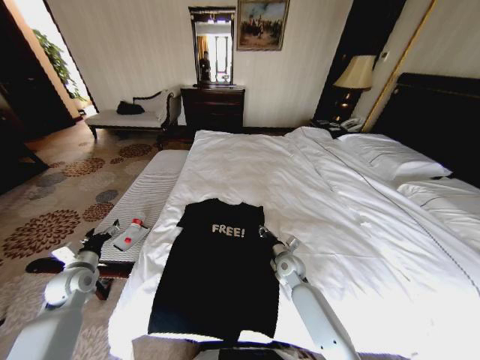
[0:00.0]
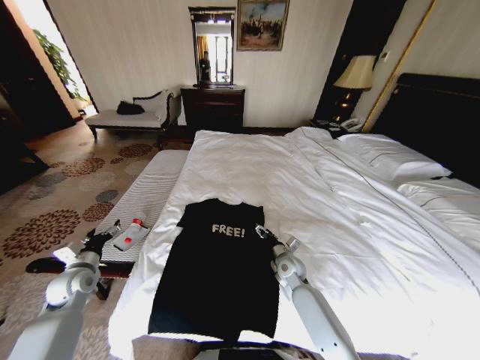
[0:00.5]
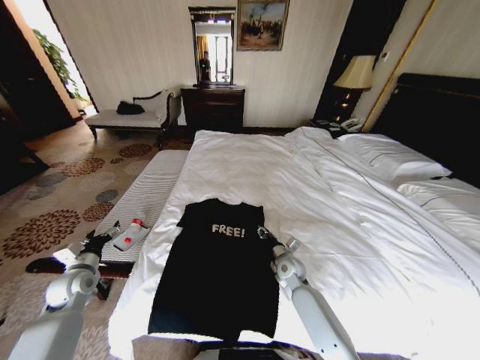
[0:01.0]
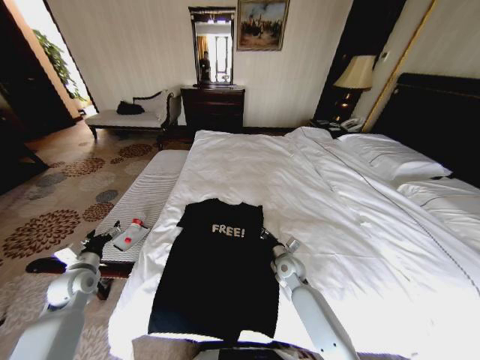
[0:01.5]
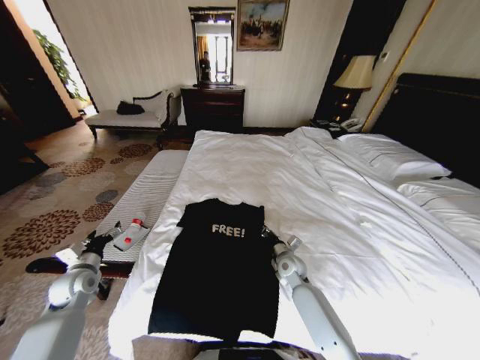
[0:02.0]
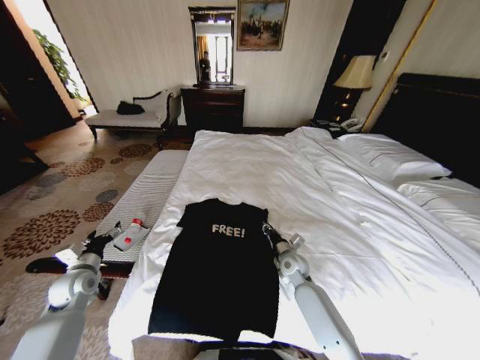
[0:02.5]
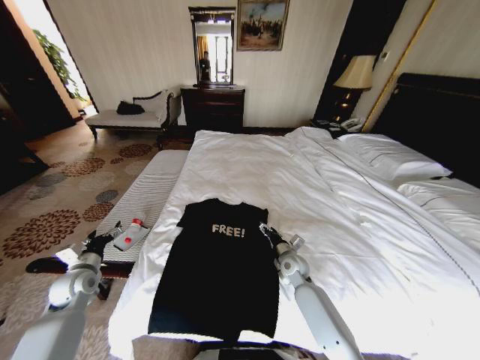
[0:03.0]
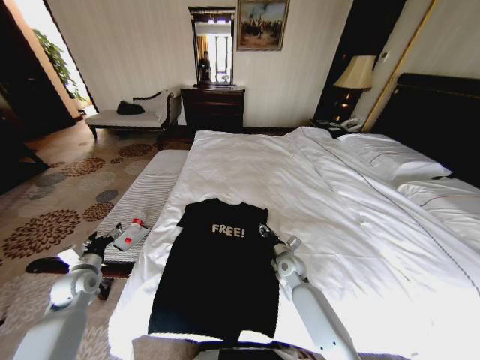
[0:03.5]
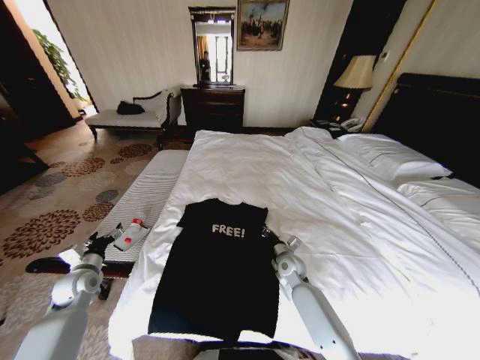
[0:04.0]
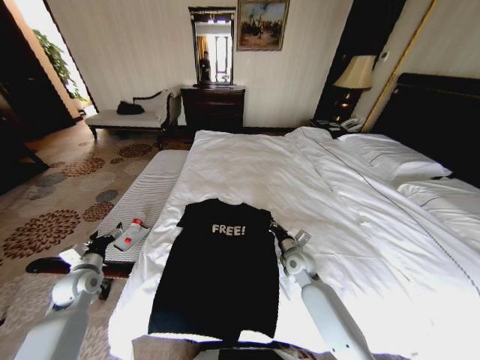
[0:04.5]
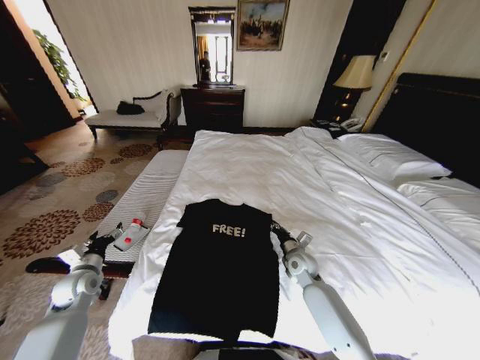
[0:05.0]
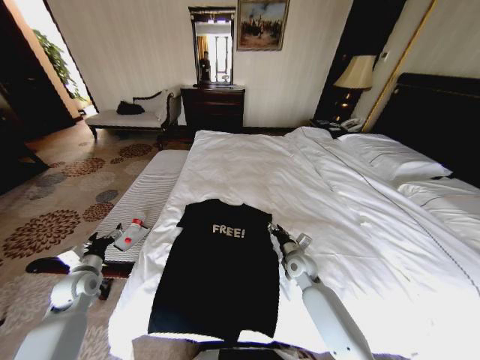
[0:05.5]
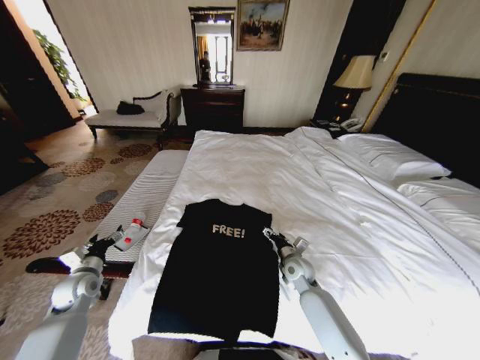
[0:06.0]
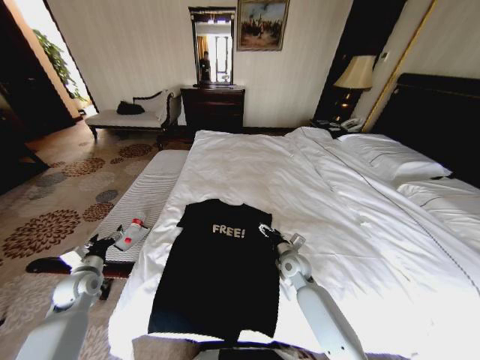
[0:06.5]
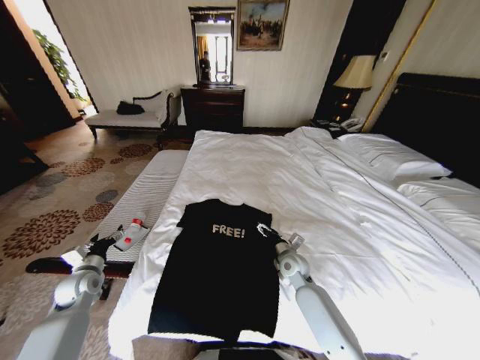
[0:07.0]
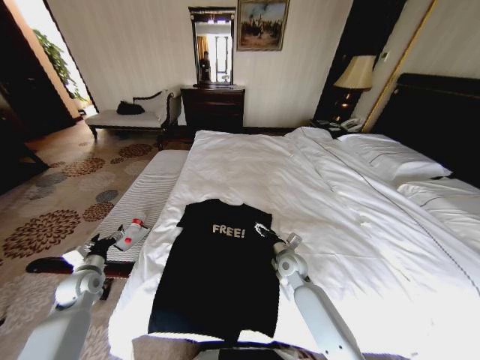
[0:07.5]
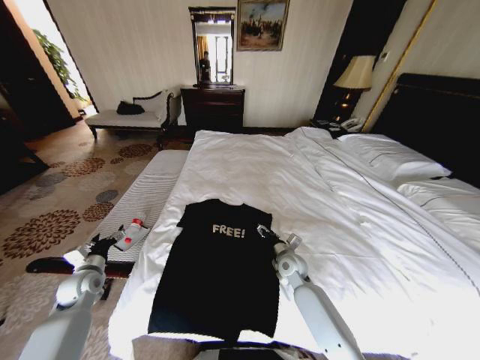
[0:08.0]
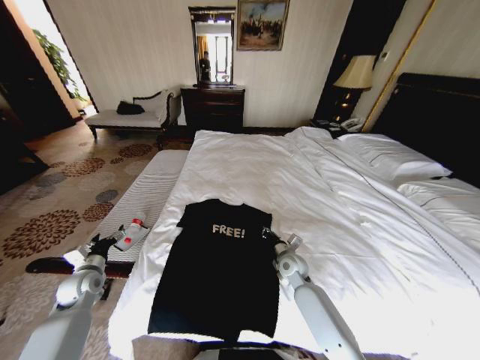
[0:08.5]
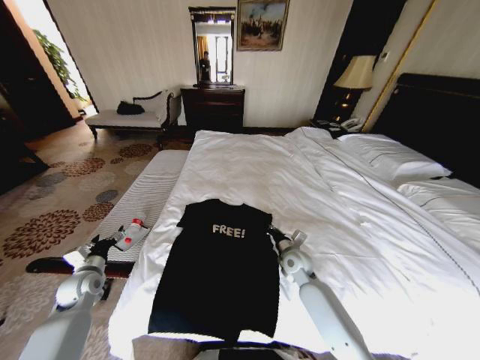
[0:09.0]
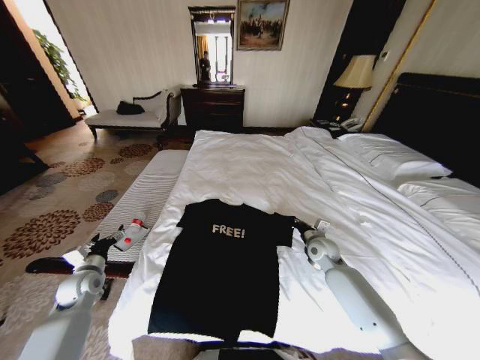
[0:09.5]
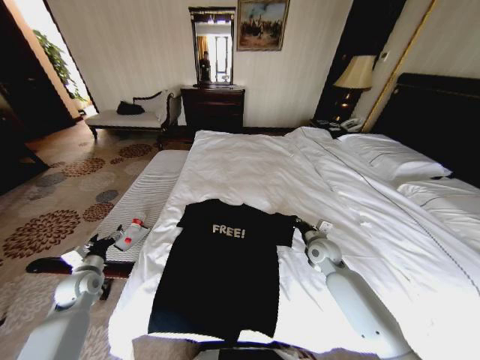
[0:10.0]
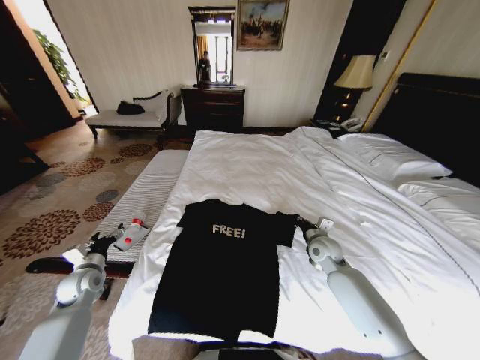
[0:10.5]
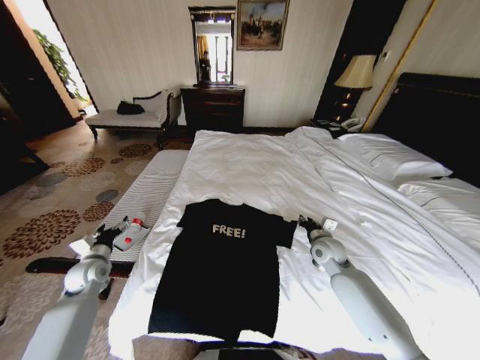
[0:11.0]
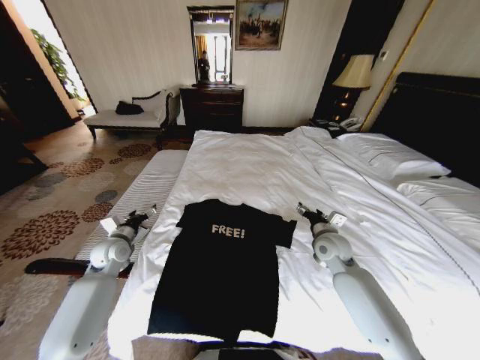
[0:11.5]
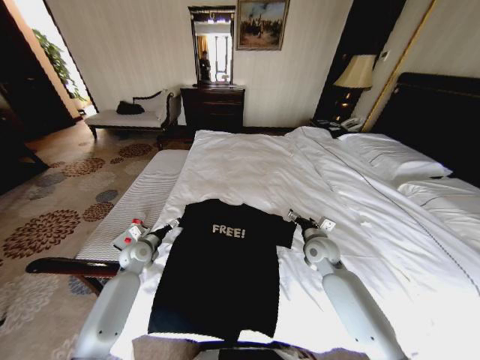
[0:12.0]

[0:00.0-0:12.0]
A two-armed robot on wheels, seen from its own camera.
Task of the whole recording: Fold the clothes on the bed.
0:04.0 to 0:06.0: The right gripper opens its fingers.
0:06.0 to 0:08.0: The grippers move only a little.
0:08.0 to 0:10.0: The right gripper heads to the right and upward, covering about 10 cm, and closes up.
0:10.0 to 0:12.0: The left gripper travels to the right and forward by roughly 15 cm. The right gripper opens.

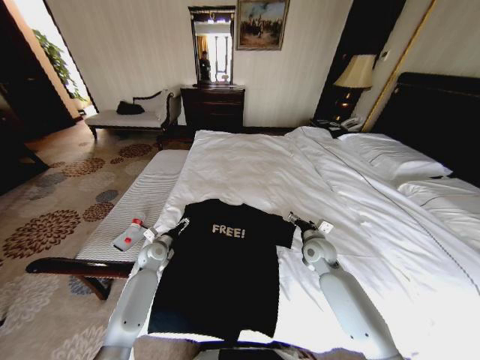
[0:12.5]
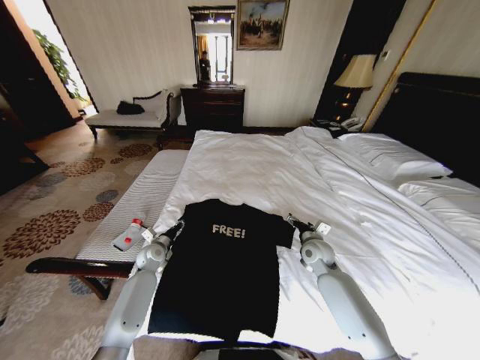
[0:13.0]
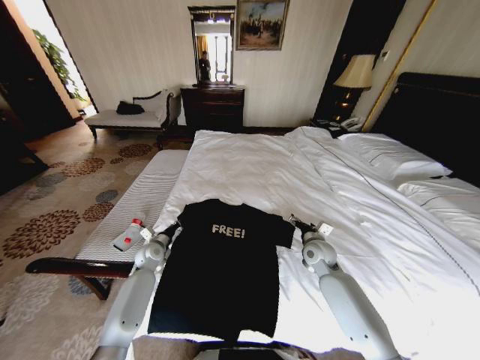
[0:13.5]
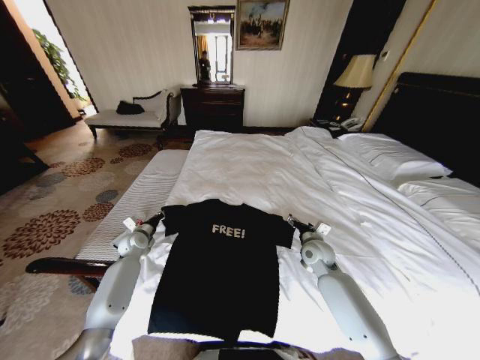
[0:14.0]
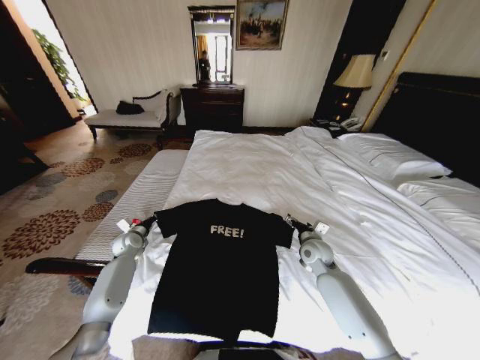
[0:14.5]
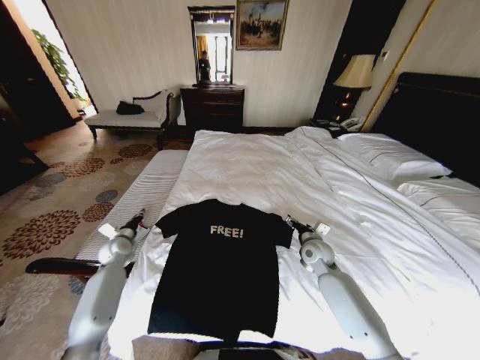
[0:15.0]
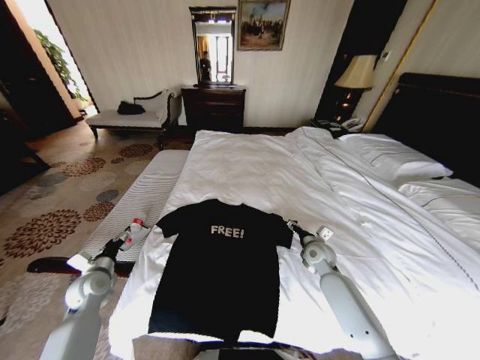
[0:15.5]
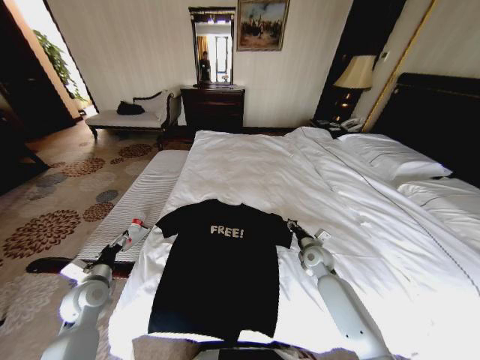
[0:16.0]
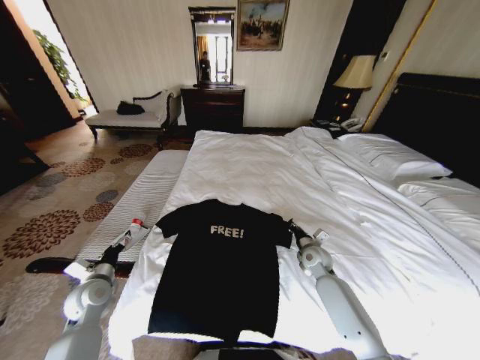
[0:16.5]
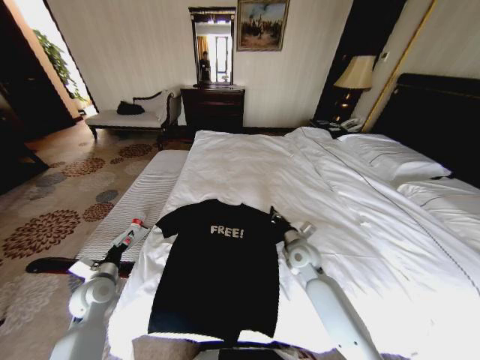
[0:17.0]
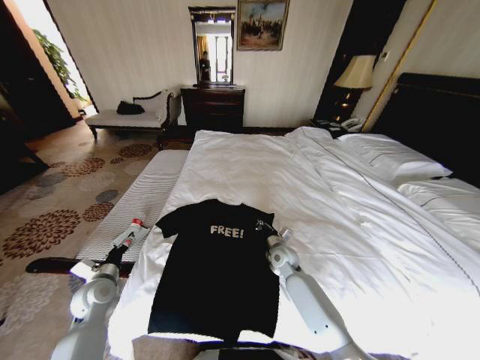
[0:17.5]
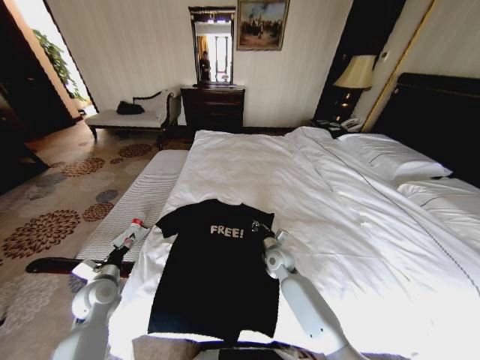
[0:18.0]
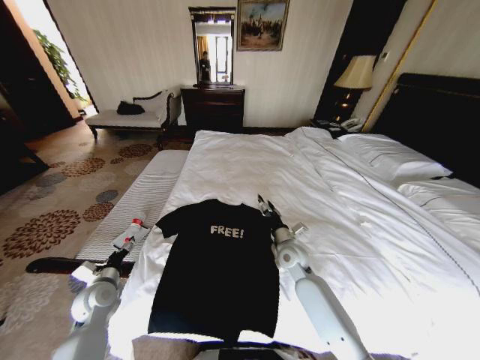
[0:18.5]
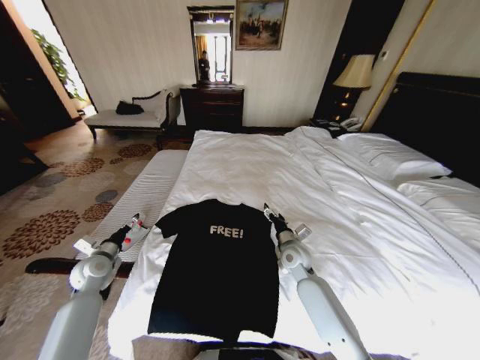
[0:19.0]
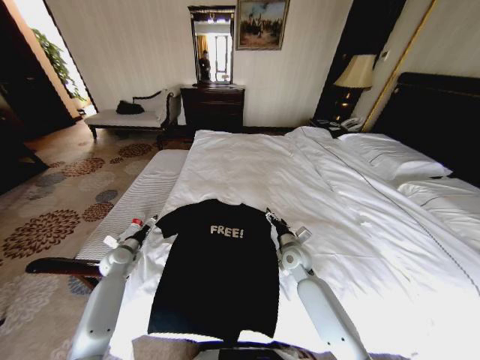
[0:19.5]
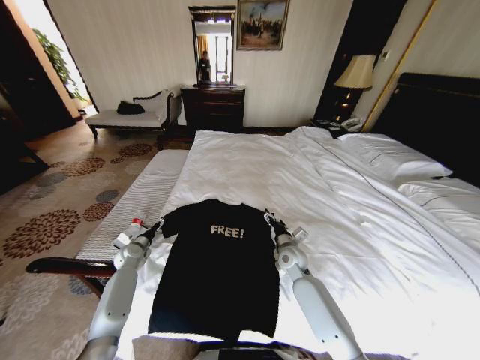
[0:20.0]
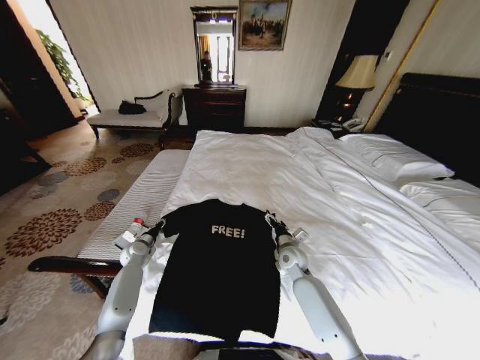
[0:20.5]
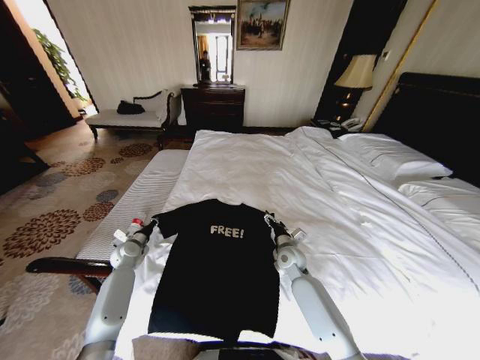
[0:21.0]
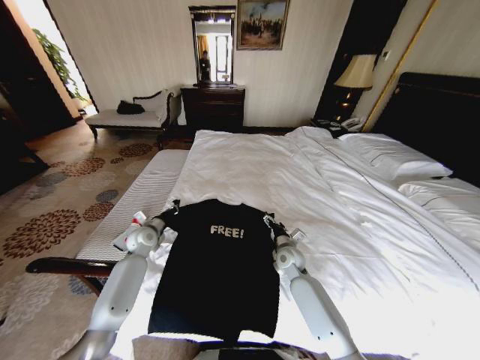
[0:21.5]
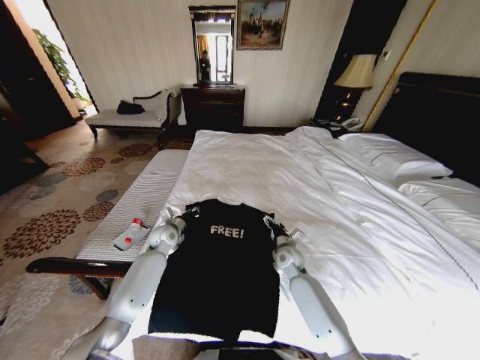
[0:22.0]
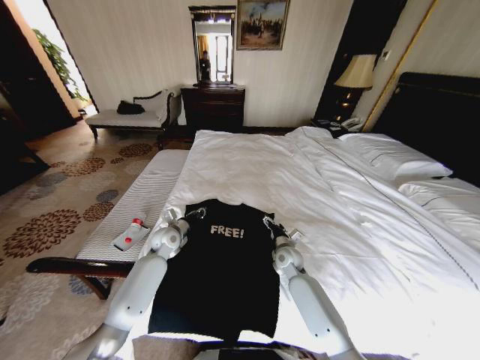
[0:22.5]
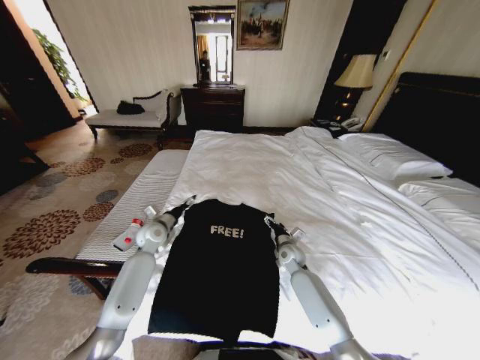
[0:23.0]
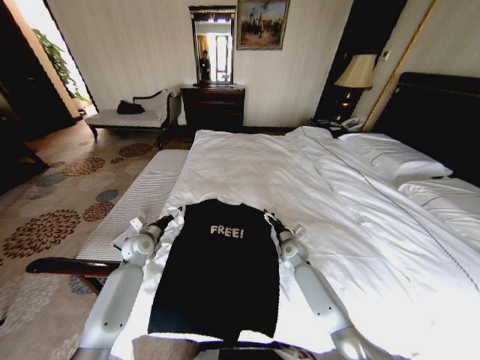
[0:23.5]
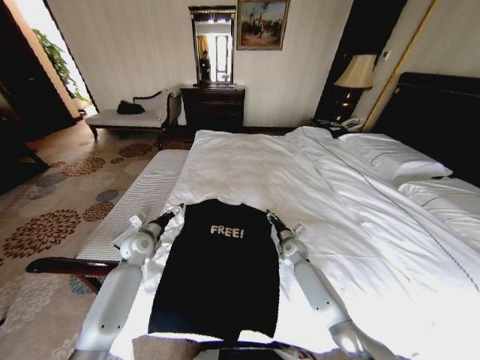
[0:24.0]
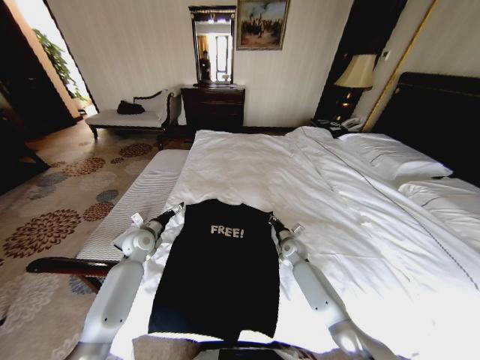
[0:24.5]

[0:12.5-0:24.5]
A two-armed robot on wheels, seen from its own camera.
Task of the whole recording: Fold the clothes on the bed.
0:12.5 to 0:14.5: The left gripper moves to the left, some 10 cm, and closes its fingers.
0:14.5 to 0:16.5: The left gripper moves backward, approximately 20 cm, and opens. The right gripper moves some 5 cm, and closes.
0:16.5 to 0:18.5: The right gripper shifts roughly 10 cm to the left, and opens its fingers.
0:18.5 to 0:20.5: The left gripper goes about 15 cm forward, and closes its fingers. The right gripper opens.
0:20.5 to 0:22.5: The left gripper travels to the right and upward by roughly 15 cm.
0:22.5 to 0:24.5: The right gripper goes roughly 5 cm forward, and closes, while the left gripper moves to the left, some 10 cm, and opens its fingers.

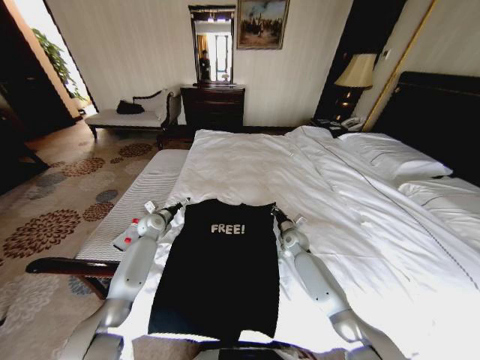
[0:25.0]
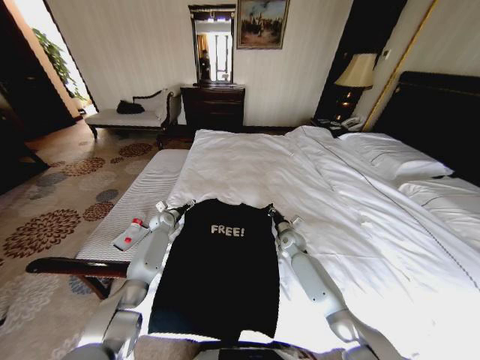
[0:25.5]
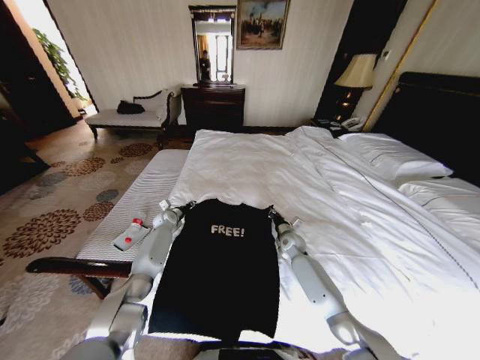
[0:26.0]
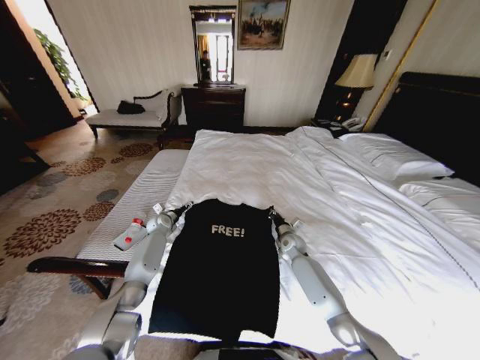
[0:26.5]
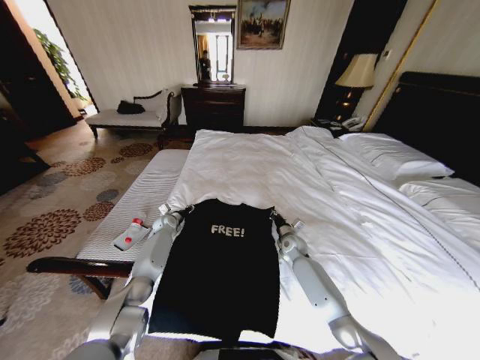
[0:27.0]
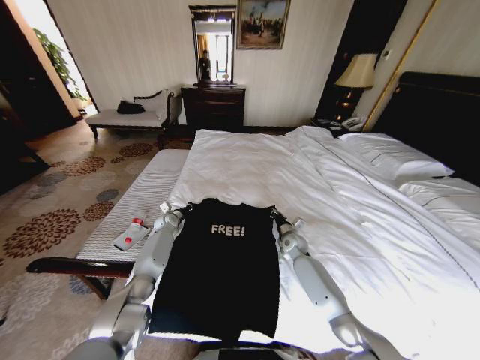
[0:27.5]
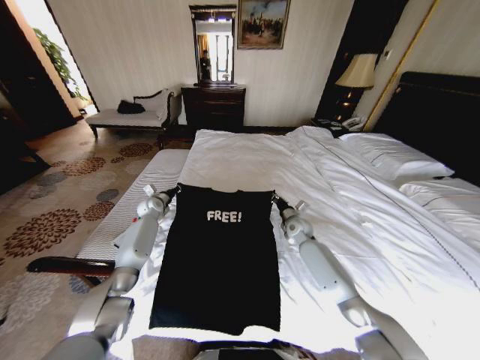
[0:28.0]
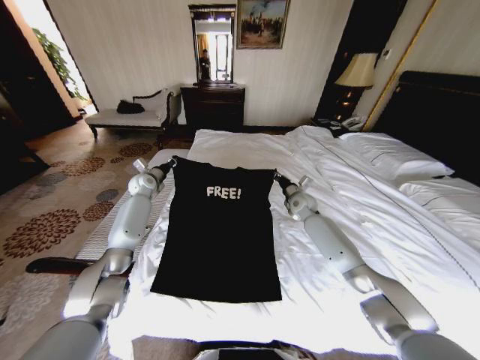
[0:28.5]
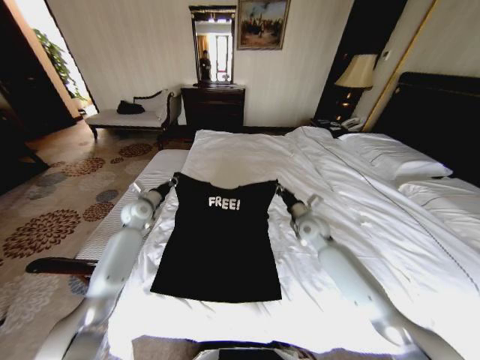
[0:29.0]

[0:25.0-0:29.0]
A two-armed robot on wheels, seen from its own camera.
Task of the whole recording: Fold the clothes on the bed.
0:25.0 to 0:27.0: The left gripper heads downward and forward, covering about 10 cm, and closes up.
0:27.0 to 0:29.0: The left gripper is displaced upward and backward by roughly 15 cm, and closes its fingers. Meanwhile the right gripper travels upward by about 15 cm.
